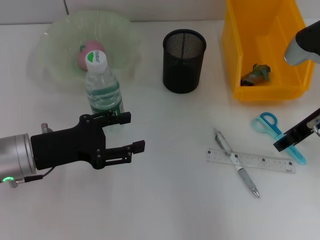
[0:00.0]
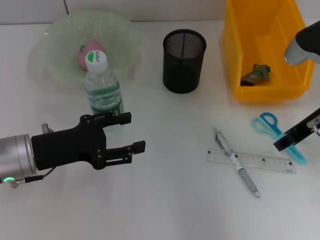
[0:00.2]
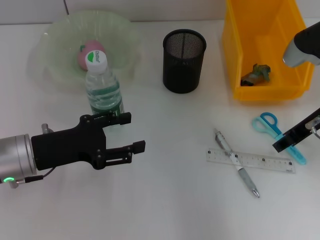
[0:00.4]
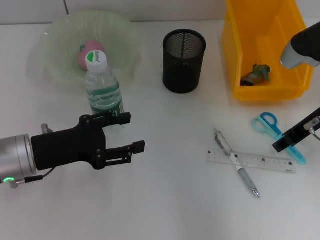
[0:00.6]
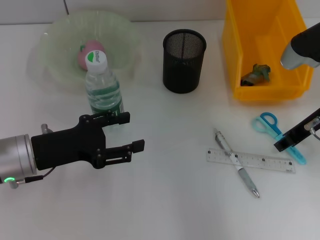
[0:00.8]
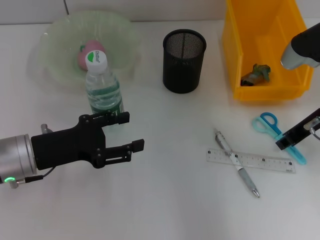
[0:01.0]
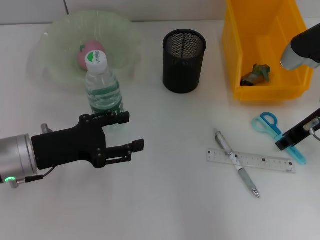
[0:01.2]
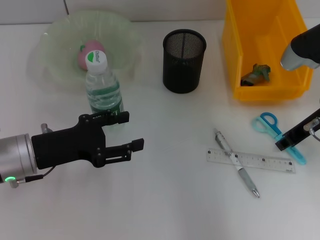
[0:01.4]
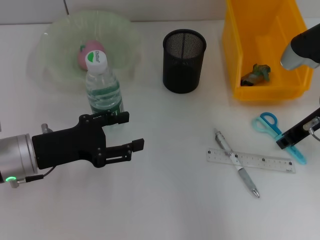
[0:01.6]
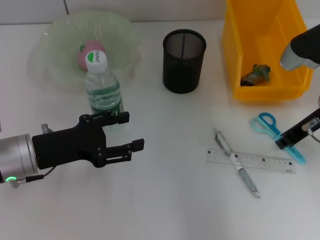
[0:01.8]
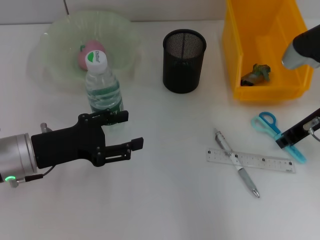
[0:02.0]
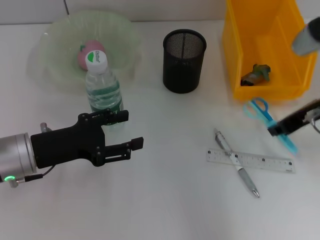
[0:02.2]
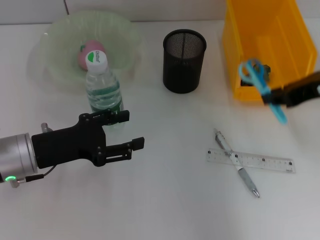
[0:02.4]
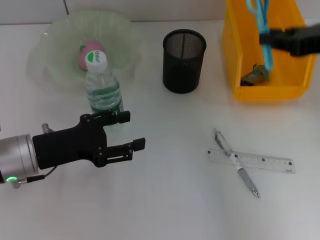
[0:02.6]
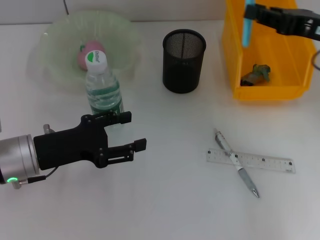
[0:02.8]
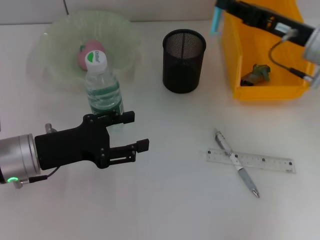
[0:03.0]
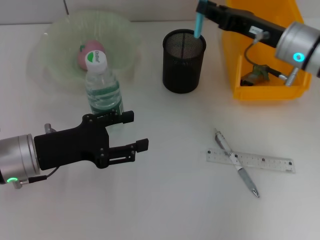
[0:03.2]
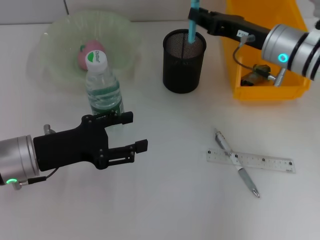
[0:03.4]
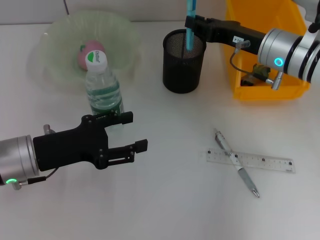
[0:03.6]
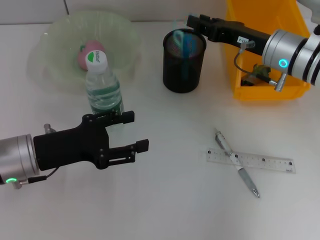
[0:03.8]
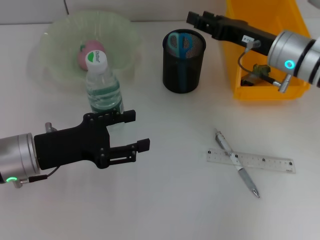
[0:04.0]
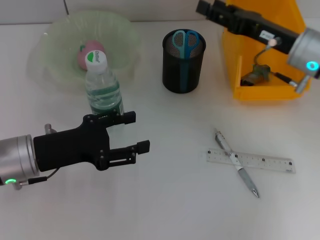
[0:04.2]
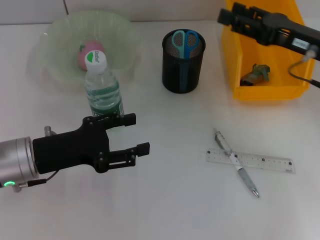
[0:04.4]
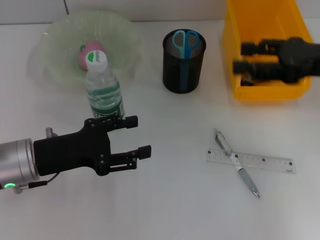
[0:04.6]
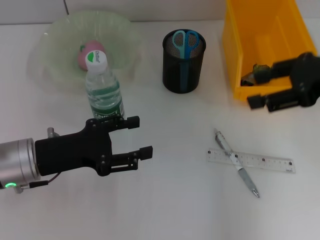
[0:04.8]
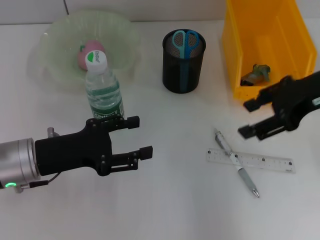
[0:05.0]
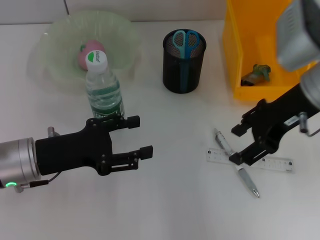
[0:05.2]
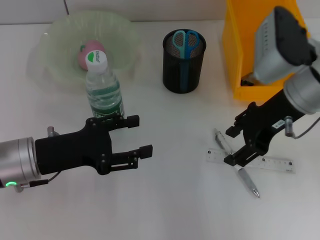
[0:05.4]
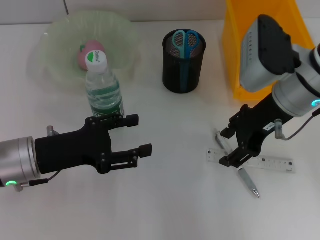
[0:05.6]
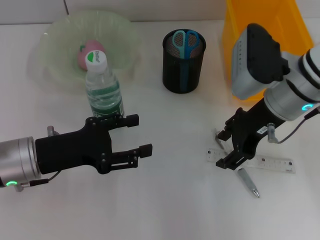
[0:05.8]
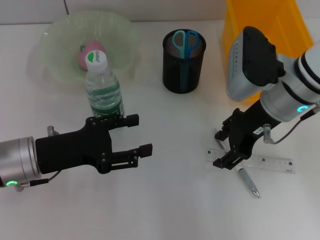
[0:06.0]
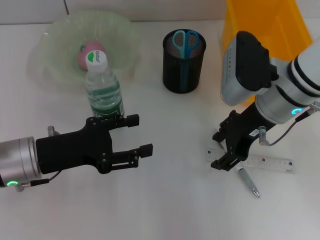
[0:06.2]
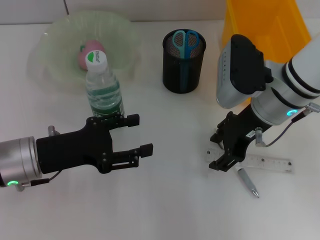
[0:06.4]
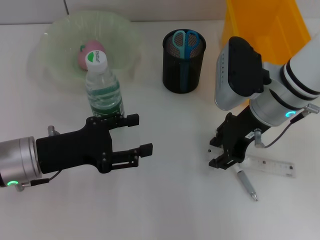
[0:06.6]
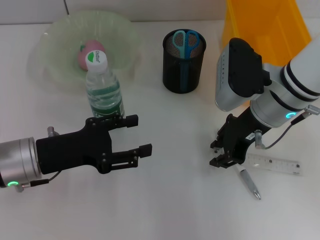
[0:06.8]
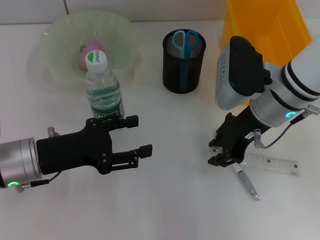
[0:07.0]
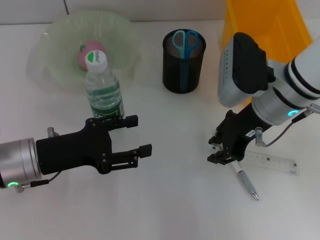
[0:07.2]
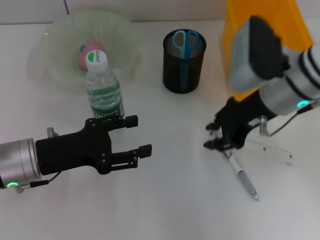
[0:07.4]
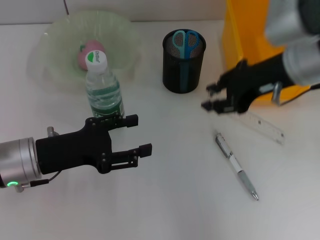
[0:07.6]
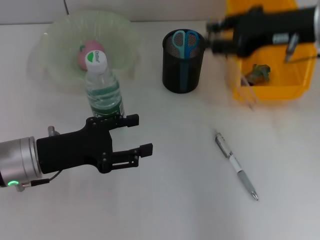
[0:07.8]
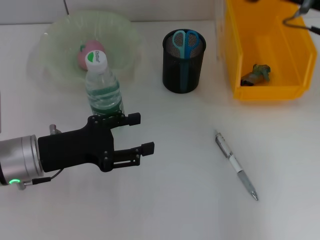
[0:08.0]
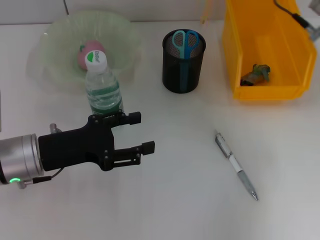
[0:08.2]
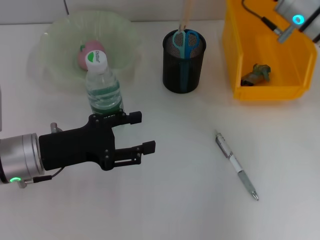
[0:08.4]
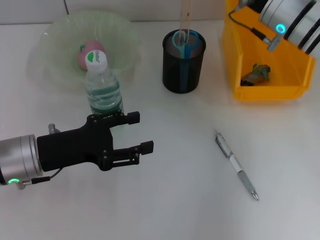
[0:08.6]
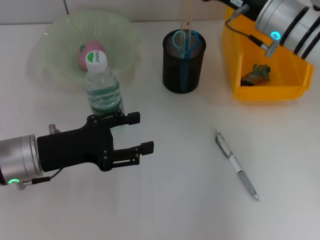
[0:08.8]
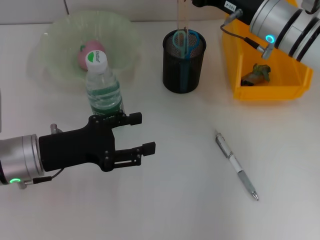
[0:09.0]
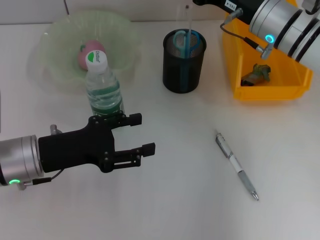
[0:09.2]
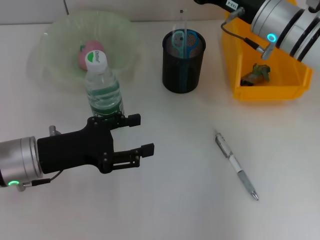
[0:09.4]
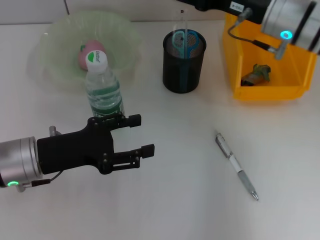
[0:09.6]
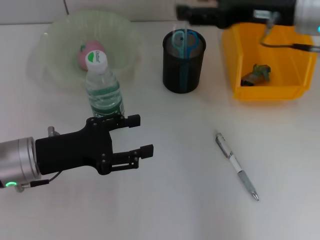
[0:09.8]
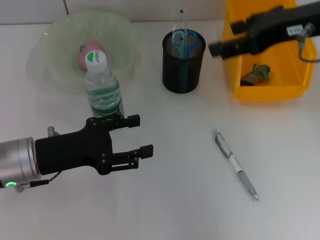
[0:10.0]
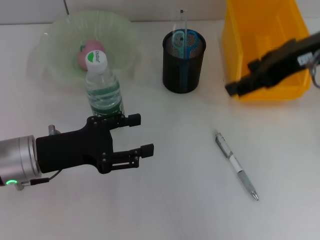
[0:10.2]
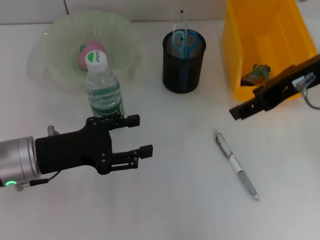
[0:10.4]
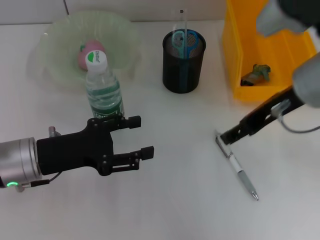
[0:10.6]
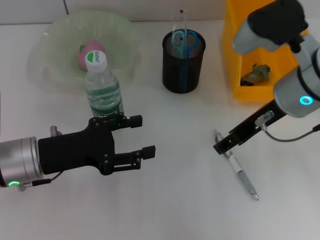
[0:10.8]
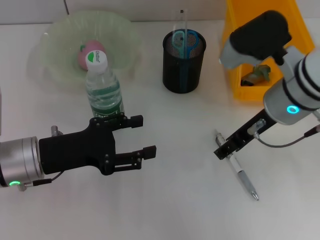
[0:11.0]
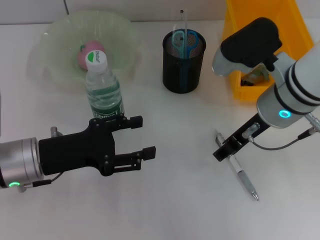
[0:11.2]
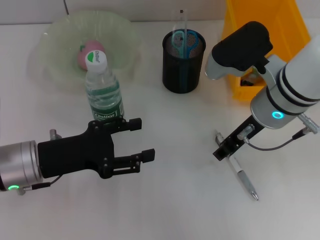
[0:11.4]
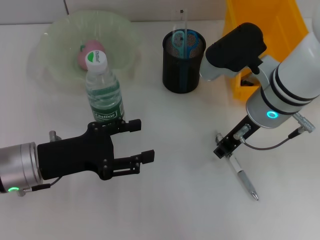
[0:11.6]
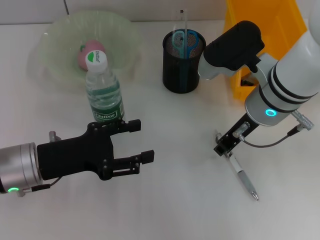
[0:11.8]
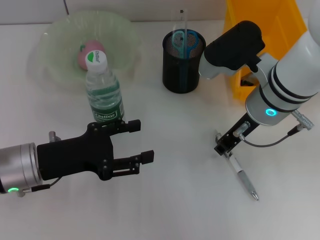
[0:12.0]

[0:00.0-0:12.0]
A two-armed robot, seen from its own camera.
Step, 0:01.8 to 0:04.0: Place the blue scissors into the pen holder with the right hand.
Step, 0:04.2 to 0:06.6: Grab the ruler with the right hand.
Step, 0:07.0 to 0:09.4: Place the ruler into the pen holder with the right hand.
0:00.0 to 0:01.6: The right gripper closes up.
0:01.6 to 0:03.0: The right gripper travels upward and back again, roughly 10 cm each way.
0:03.0 to 0:04.4: The right gripper opens up.
0:04.4 to 0:06.0: The right gripper moves to the left, some 10 cm.
0:06.0 to 0:07.6: The right gripper is displaced upward by some 5 cm, and closes.
0:07.6 to 0:09.0: The right gripper heads forward and downward, covering approximately 10 cm.
0:09.0 to 0:10.4: The right gripper moves upward and backward, about 15 cm, and opens.
0:10.4 to 0:12.0: The right gripper heads downward and to the left, covering roughly 10 cm, and closes its fingers.

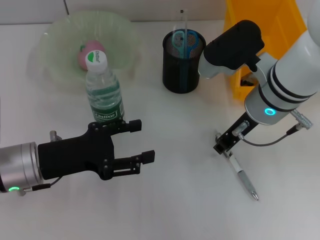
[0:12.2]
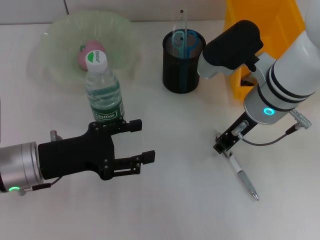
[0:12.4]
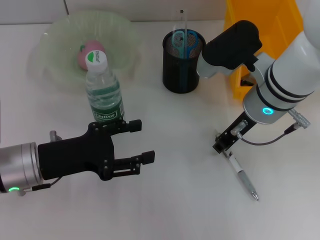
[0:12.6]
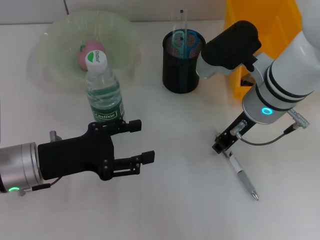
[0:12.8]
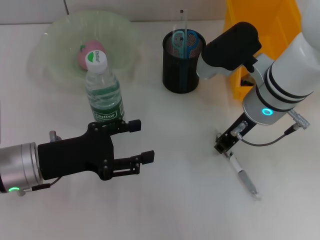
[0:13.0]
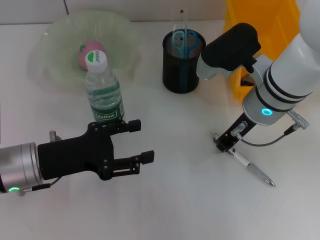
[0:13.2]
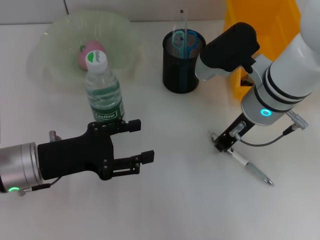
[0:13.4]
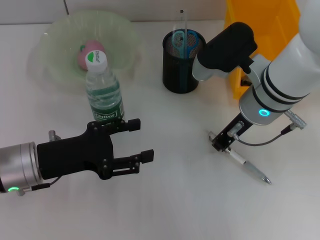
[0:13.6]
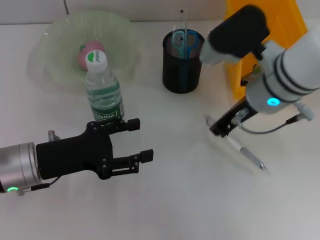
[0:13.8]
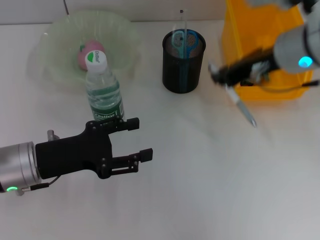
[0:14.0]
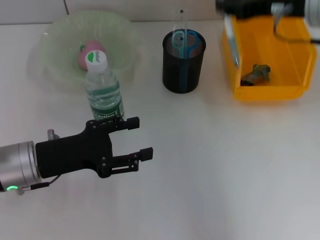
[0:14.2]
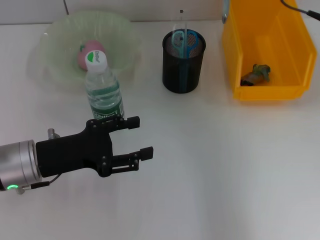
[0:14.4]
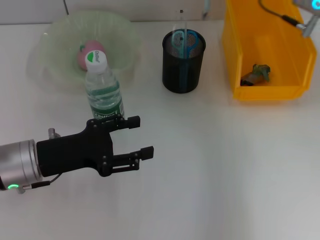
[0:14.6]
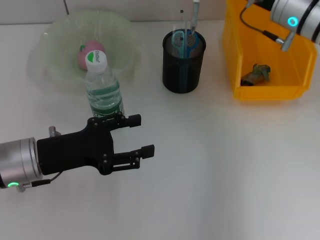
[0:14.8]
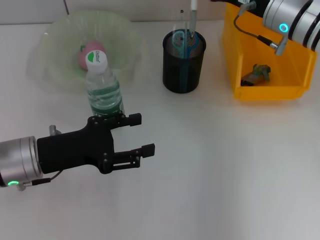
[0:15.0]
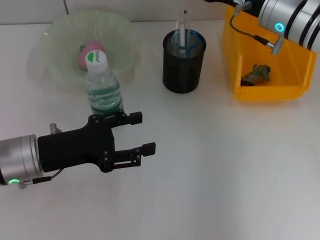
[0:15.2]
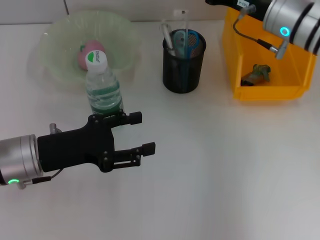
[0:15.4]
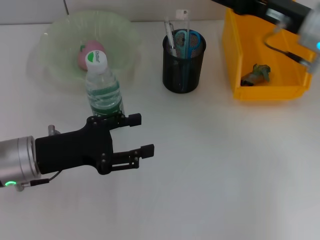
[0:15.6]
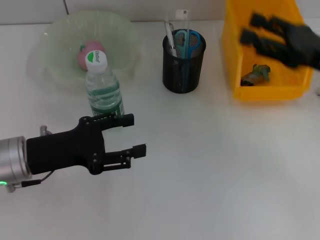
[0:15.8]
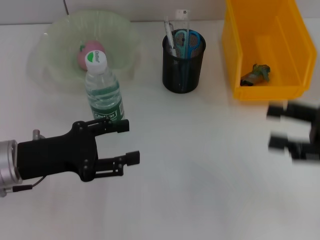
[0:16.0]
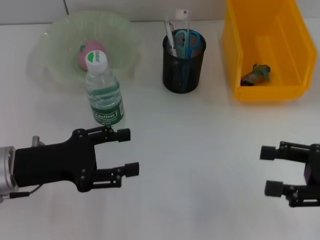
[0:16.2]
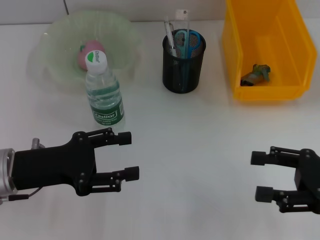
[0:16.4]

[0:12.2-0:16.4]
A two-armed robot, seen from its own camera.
Step, 0:13.4 to 0:15.6: Place the gray spring-action pen into the pen holder with the right hand.
0:12.2 to 0:13.6: The two grippers keep their place.
0:13.6 to 0:15.0: The right gripper is displaced forward and to the right by some 10 cm.
0:15.0 to 0:16.4: The right gripper heads backward and to the right, covering roughly 25 cm, and opens.
